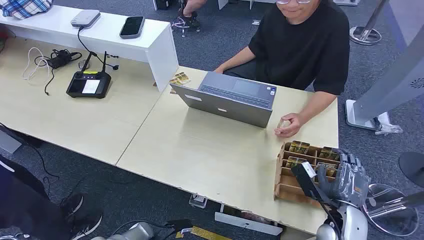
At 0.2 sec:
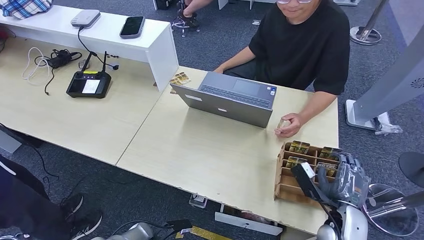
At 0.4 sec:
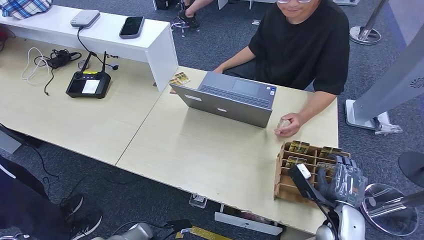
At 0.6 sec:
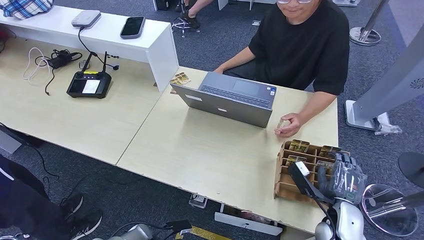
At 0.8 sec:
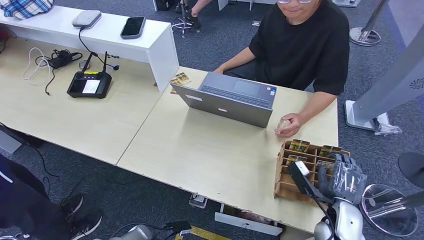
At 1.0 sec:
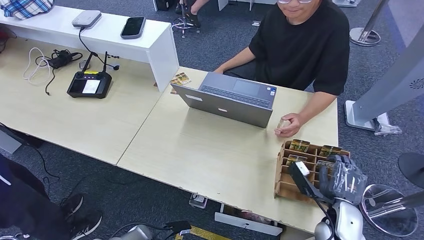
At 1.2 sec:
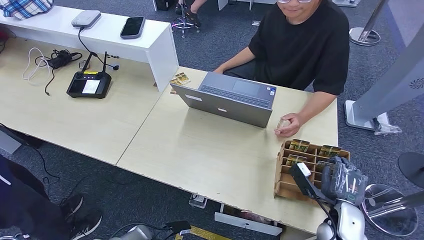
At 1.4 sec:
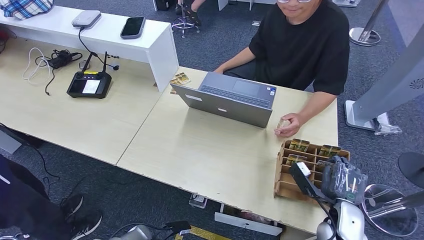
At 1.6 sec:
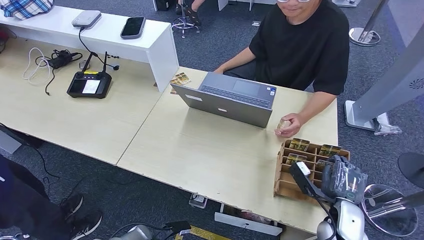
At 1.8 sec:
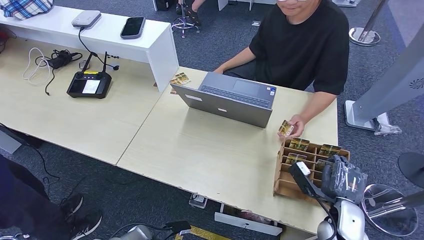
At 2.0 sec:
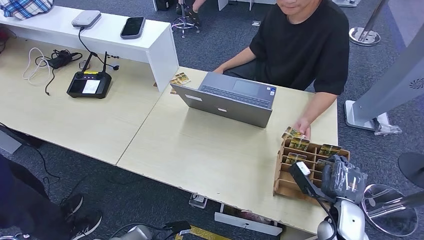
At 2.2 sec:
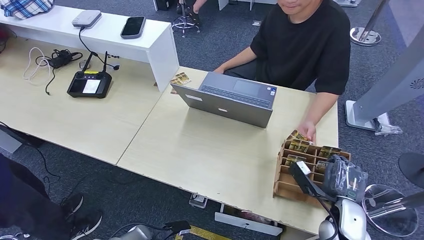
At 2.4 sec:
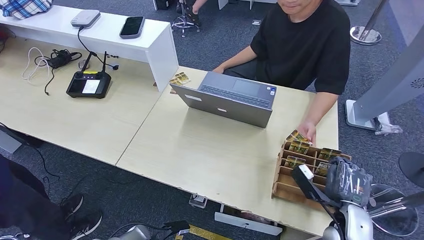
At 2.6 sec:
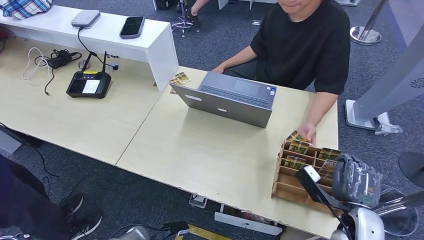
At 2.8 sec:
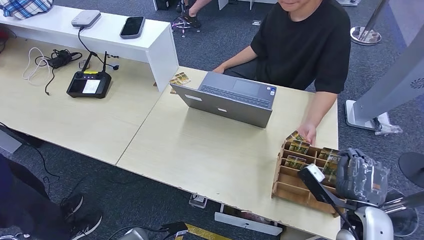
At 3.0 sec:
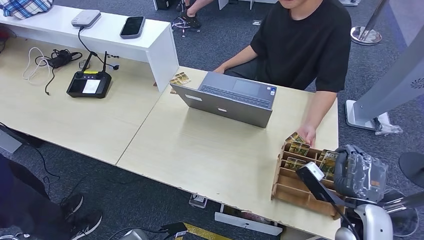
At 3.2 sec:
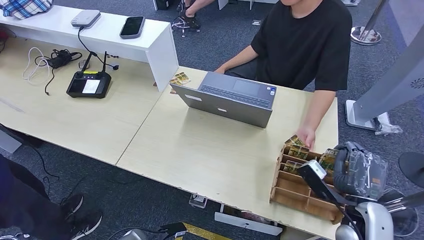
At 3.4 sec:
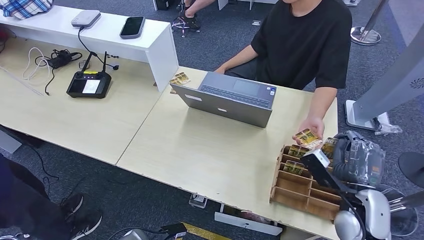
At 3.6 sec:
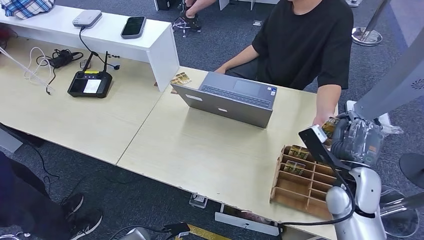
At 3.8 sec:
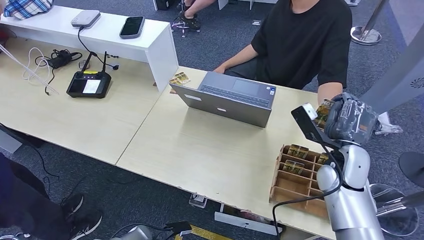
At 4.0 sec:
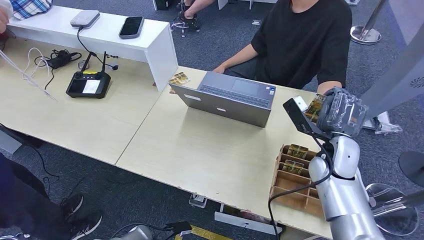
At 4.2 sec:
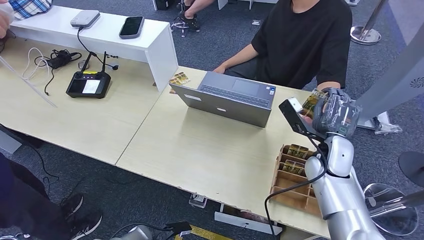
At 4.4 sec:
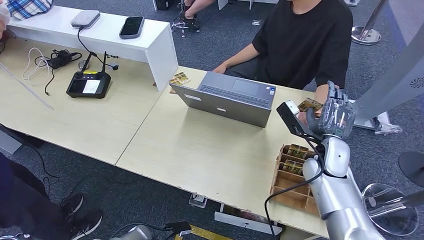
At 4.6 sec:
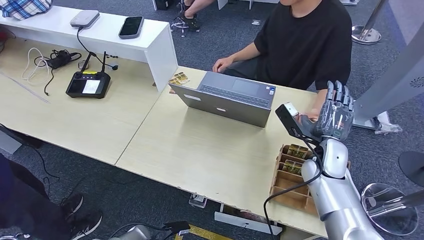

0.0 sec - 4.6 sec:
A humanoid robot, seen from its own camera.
Step, 0.0 sec - 1.8 sec: Pick up the key card from the card box.
Step, 2.0 sec - 4.6 sec: Hand the key card to the target.
1.6 sec - 3.0 sec: The right hand travels upward by some 5 cm.
3.0 sec - 4.6 sec: The right hand goes approximately 15 cm forward and to the left.
